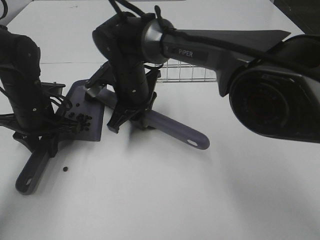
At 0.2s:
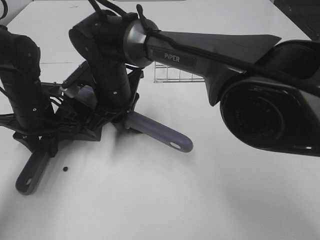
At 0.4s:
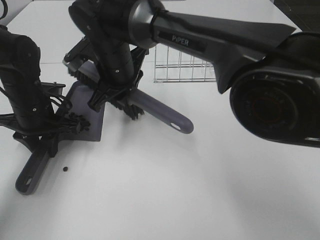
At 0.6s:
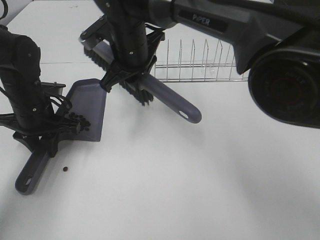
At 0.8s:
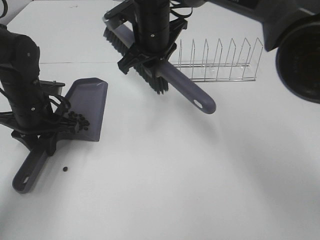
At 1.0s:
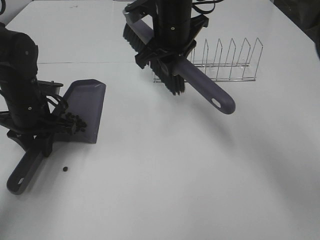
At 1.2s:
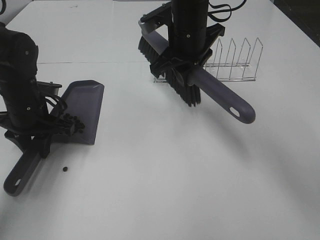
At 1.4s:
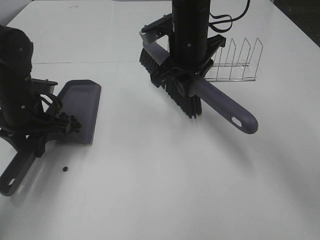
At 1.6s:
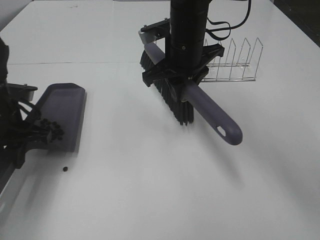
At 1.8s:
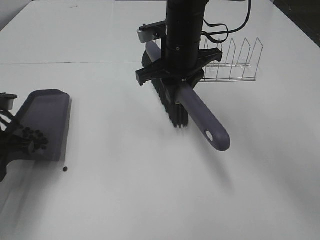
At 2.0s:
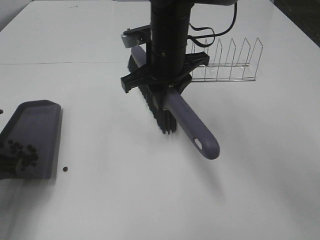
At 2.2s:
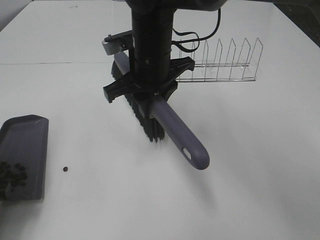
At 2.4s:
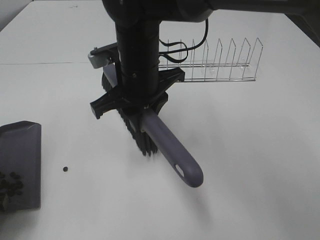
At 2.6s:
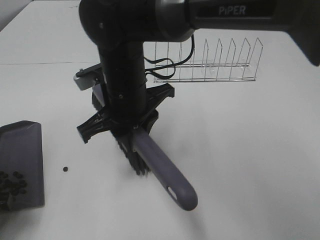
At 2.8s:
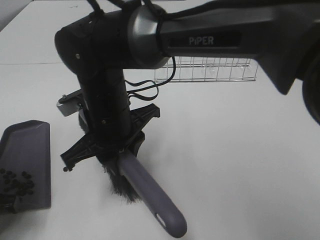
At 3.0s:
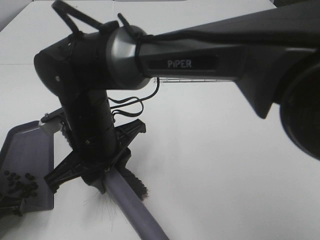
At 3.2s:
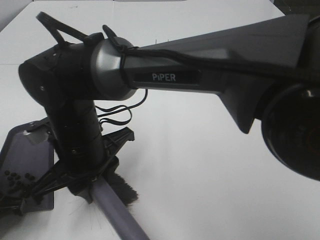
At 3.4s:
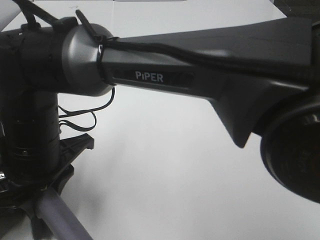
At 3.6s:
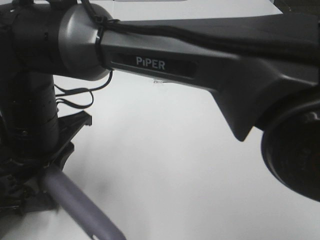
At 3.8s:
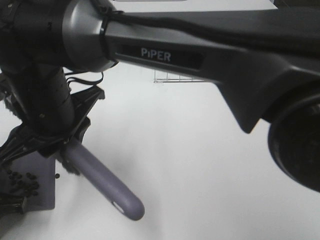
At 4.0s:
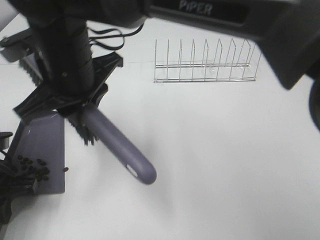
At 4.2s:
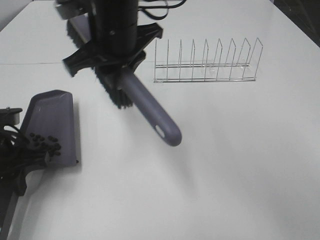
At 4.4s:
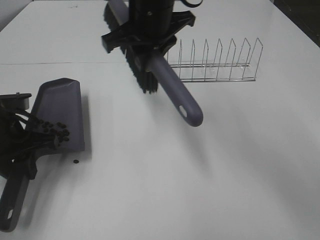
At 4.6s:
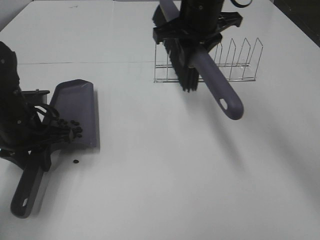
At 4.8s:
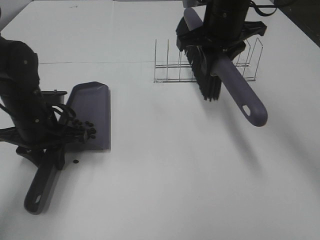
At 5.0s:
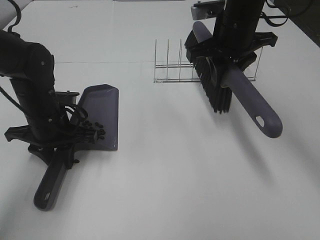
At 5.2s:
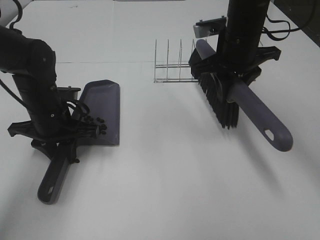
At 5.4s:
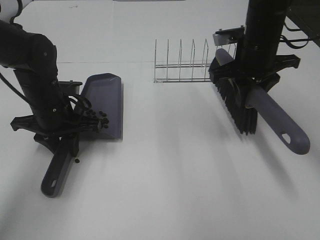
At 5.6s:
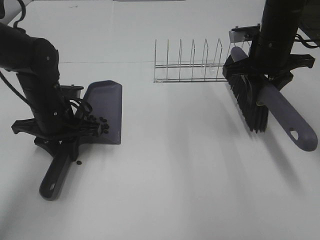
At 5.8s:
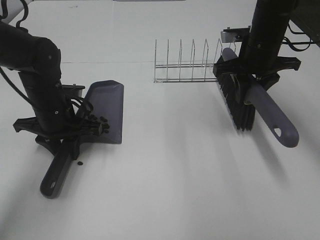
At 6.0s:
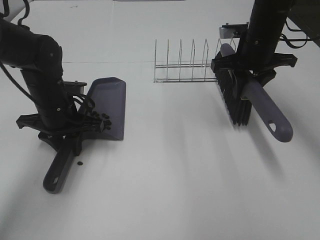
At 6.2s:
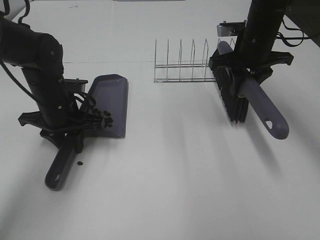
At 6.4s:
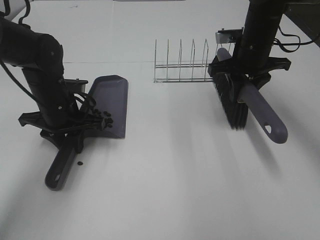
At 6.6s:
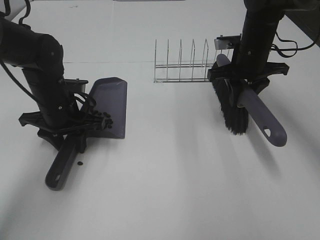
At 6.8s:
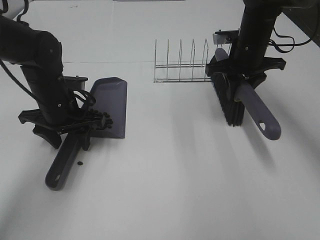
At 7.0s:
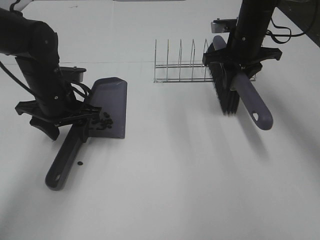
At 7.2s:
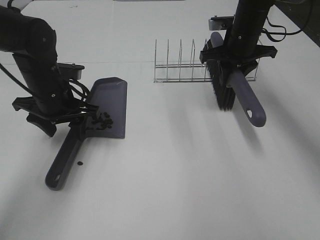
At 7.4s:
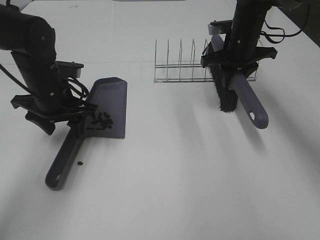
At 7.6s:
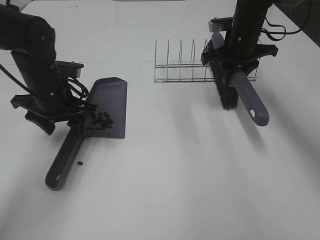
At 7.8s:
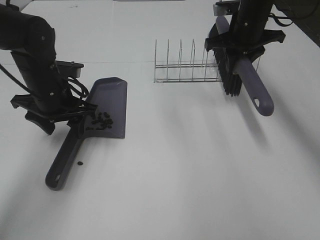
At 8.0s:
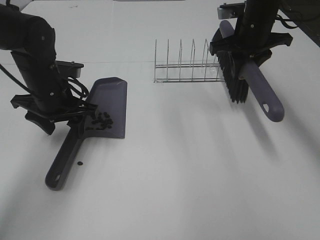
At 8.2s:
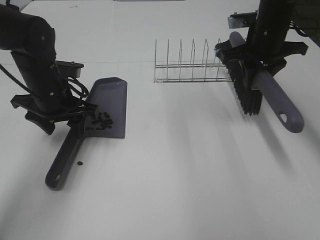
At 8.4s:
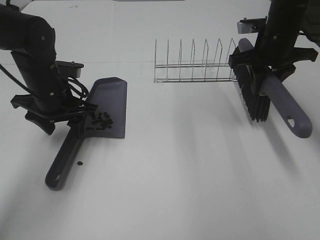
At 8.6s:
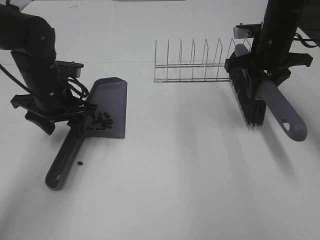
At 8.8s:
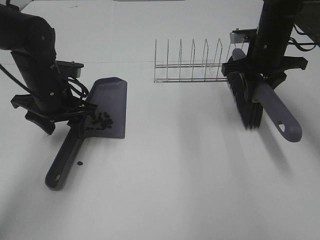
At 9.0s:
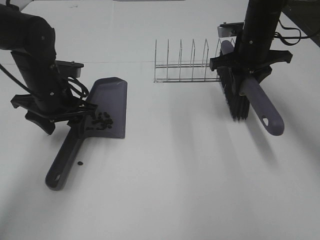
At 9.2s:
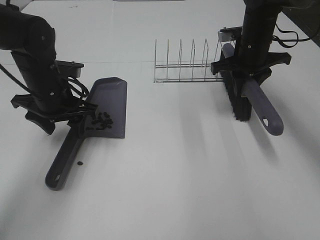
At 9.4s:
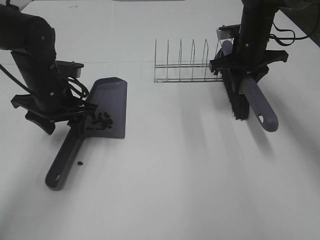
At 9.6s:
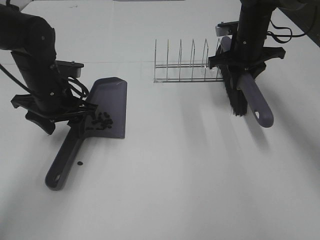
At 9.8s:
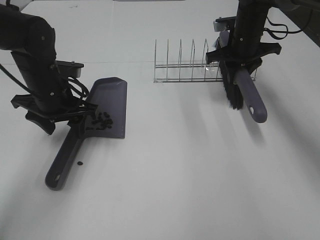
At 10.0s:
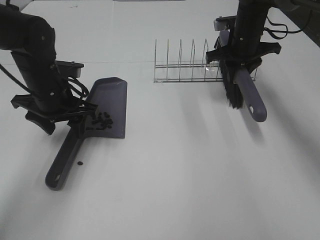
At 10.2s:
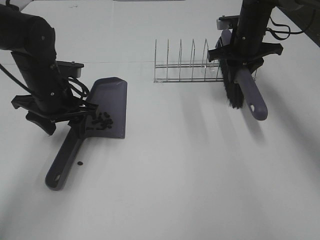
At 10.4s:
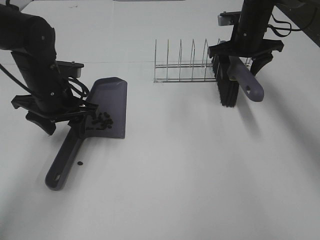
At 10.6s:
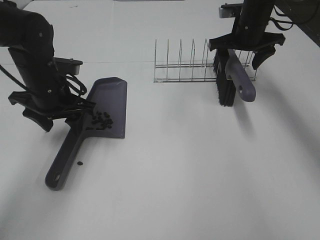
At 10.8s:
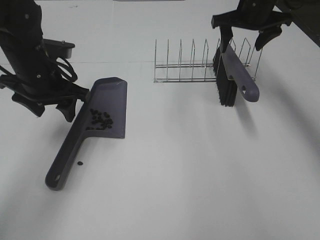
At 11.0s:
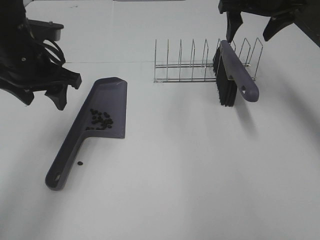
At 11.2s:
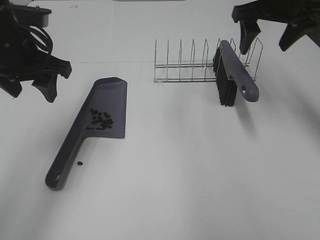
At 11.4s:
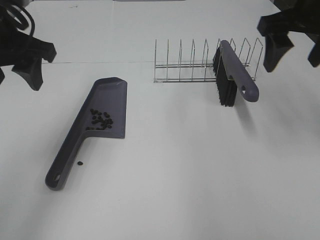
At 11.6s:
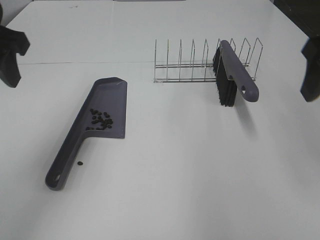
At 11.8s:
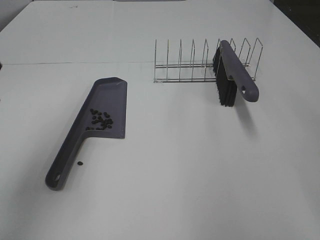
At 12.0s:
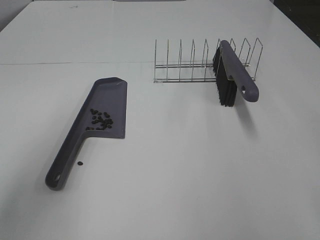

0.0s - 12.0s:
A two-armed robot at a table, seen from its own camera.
Task of the whole recording: Sweep Coffee Bean.
Step, 0.0s - 3.6s: Right hand:sweep the coffee beans into the dustpan.
Step, 3.8s - 6.8s: Left hand:place the dustpan on the table.
Step, 7.0s - 10.4s: Right hand:place the broom on the rack.
0.0s - 1.6s: The right gripper moves to the right and upward, about 15 cm. Meanwhile the left gripper changes place by some 5 cm.
1.6s - 3.0s: The left gripper shifts about 15 cm backward, while the right gripper goes roughly 20 cm to the left, backward and downward.
3.0s - 4.4s: The right gripper shifts some 20 cm forward, upward and to the right. The left gripper goes some 10 cm forward.
4.4s - 6.0s: The right gripper travels to the right and downward by approximately 20 cm; the left gripper moves forward and to the right, some 10 cm.
6.0s - 7.6s: The right gripper is displaced forward by some 5 cm, while the left gripper opens up.
9.0s - 10.4s: The right gripper heads forward, covering roughly 5 cm, and opens up.
10.4s - 12.0s: The right gripper goes some 40 cm backward. The left gripper heads backward and upward, covering about 25 cm.

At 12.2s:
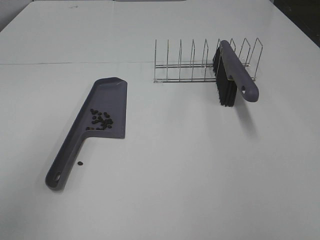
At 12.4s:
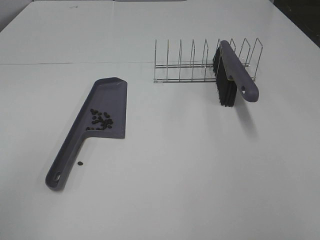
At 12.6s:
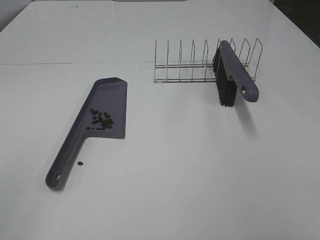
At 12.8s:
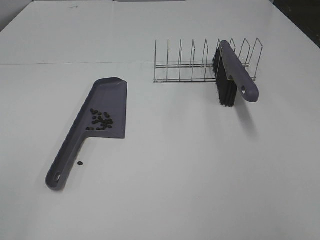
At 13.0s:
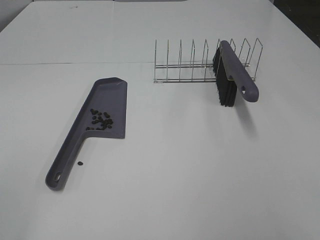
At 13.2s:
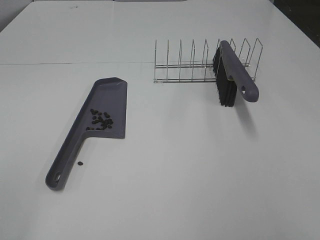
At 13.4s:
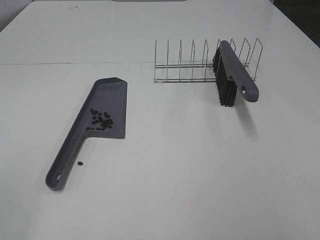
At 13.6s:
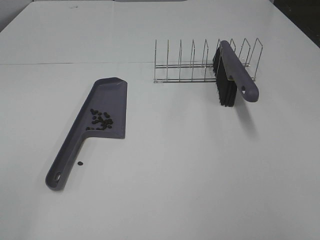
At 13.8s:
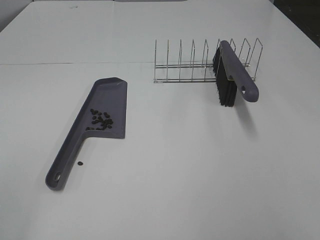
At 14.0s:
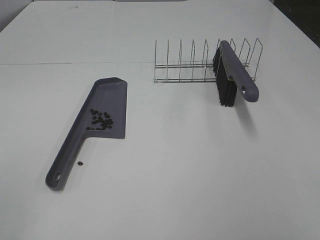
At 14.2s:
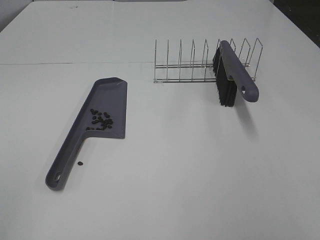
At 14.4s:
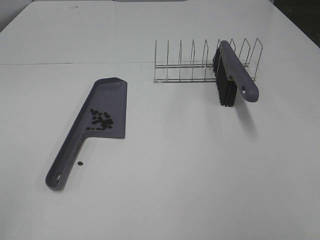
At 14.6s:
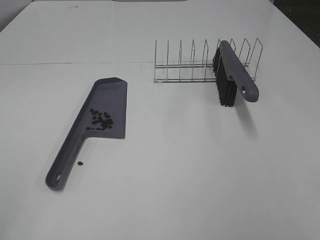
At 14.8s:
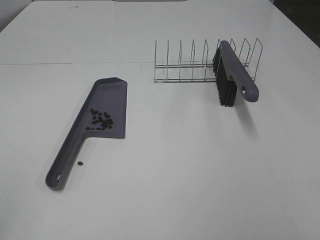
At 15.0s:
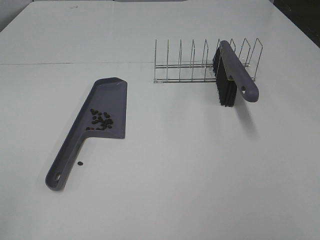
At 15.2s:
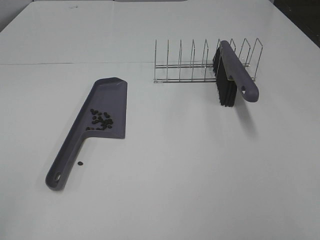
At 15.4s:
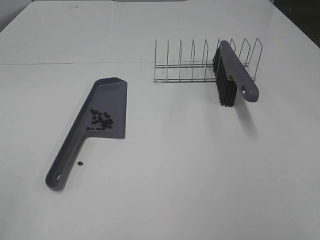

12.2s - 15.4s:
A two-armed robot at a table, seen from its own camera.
Task of the whole recording: Sweep Coffee Bean.
12.2s - 13.8s: The left gripper moves backward, about 10 cm.

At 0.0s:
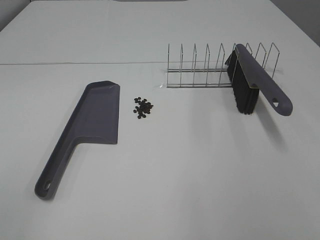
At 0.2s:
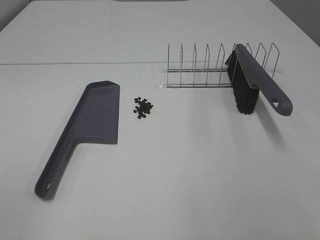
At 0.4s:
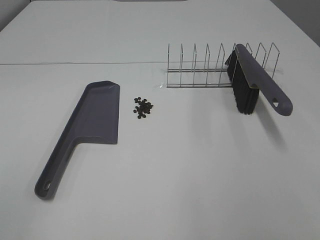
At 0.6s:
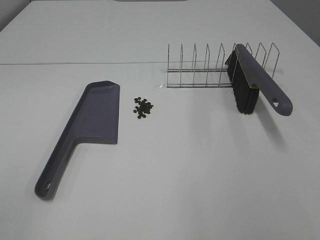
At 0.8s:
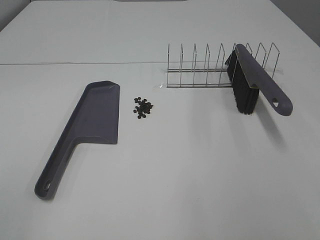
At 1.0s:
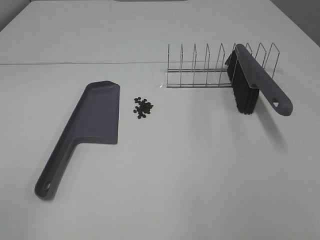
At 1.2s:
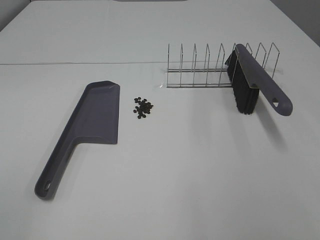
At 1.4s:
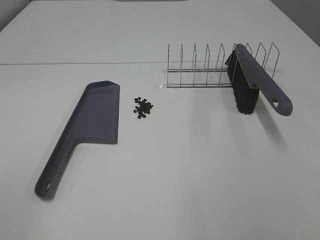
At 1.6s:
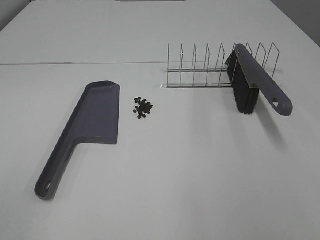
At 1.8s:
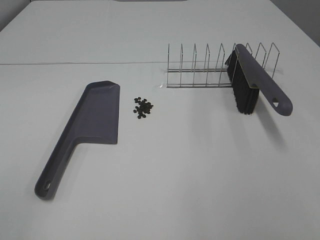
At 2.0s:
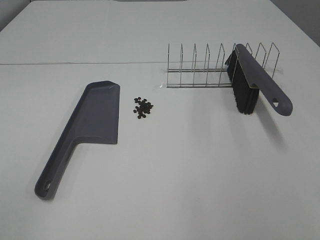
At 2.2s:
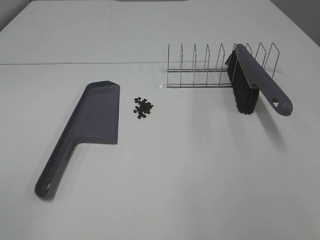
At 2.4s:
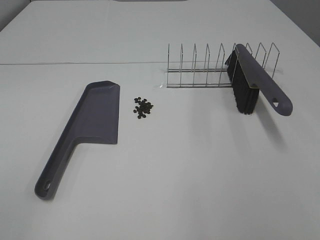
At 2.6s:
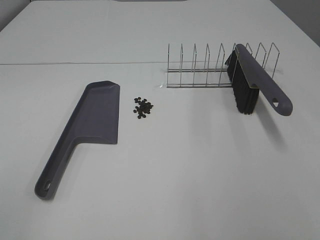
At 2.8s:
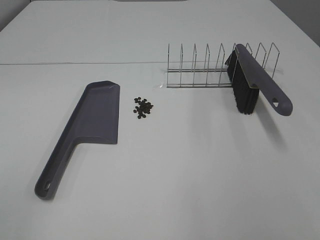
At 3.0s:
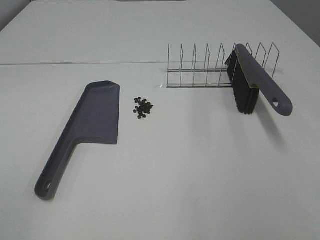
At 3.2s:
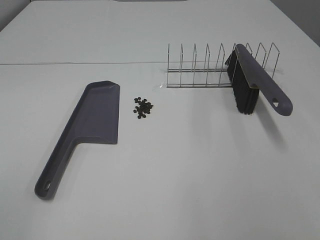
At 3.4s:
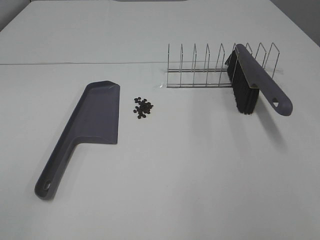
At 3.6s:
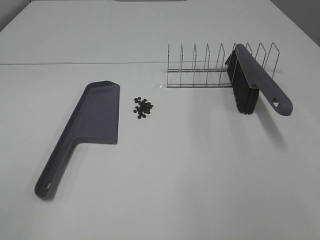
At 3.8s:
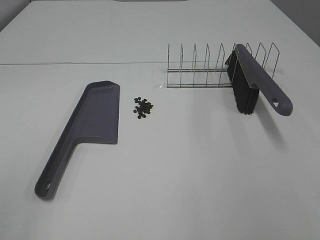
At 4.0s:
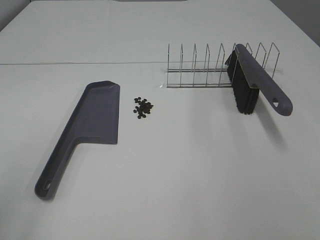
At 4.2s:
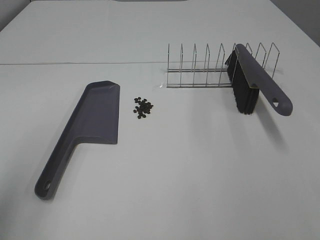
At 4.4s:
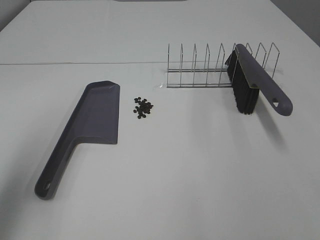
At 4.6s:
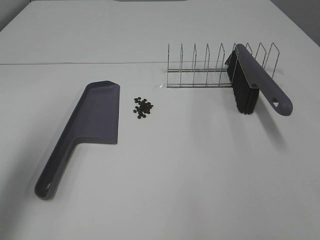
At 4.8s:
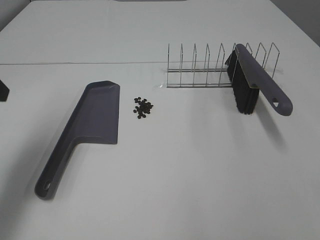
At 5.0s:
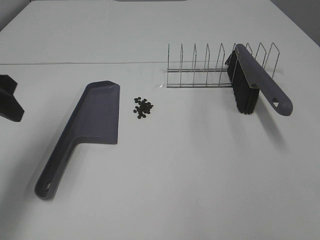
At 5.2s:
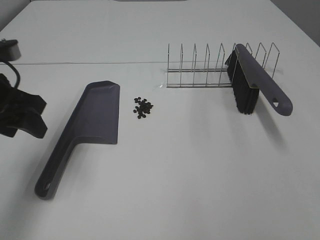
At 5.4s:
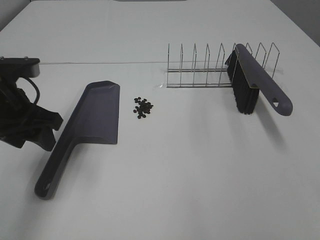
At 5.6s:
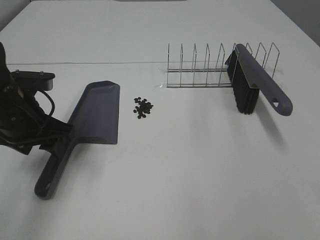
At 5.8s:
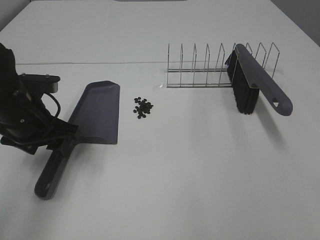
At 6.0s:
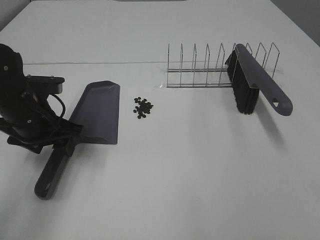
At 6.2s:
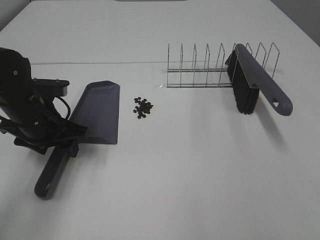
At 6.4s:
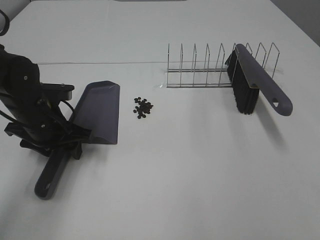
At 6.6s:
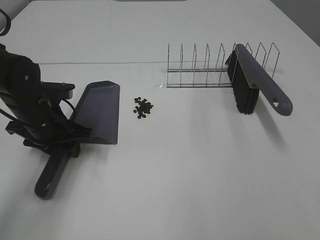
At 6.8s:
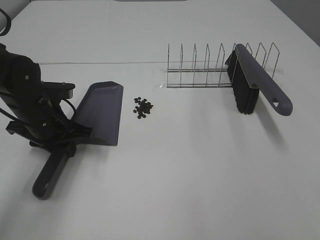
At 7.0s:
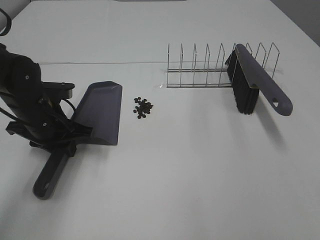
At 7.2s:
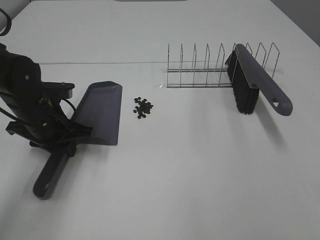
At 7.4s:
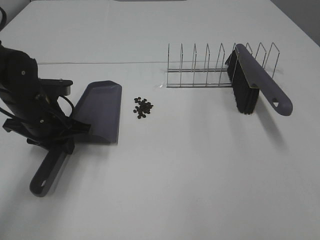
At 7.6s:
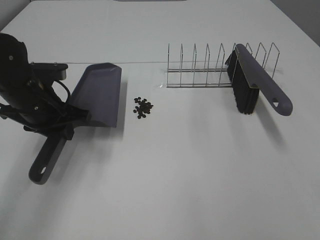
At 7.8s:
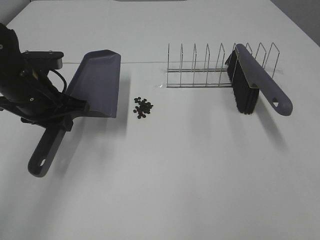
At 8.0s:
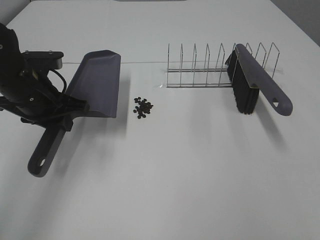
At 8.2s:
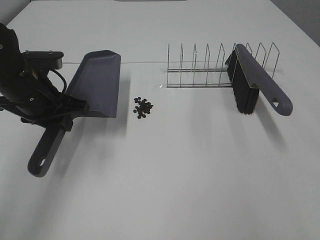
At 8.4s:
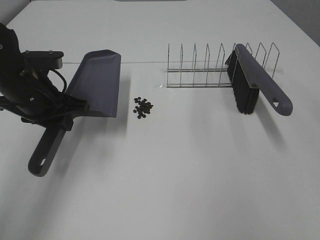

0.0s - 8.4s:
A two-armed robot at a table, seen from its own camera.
Task of the whole recording: Sweep Coffee Bean.
Step, 0.0s - 7.2s: Left hand: grab the dustpan.
0.0s - 2.8s: The two grippers keep their place.
2.8s - 4.2s: The left gripper is displaced forward by approximately 10 cm.
4.2s - 5.6s: The left gripper heads forward, downward and to the right, covering some 25 cm.
5.6s - 7.0s: The left gripper is displaced downward by roughly 5 cm, and closes its fingers.
7.0s - 8.4s: The left gripper goes approximately 5 cm upward; the right gripper shifts approximately 20 cm forward.
